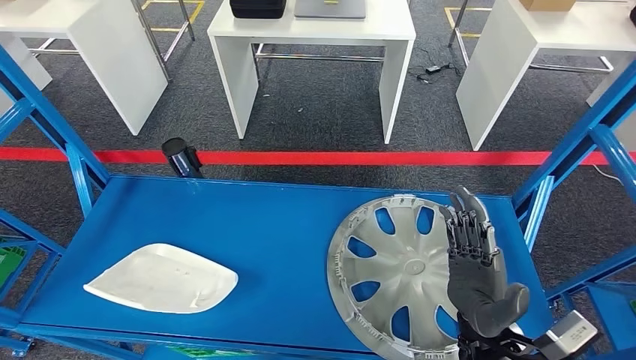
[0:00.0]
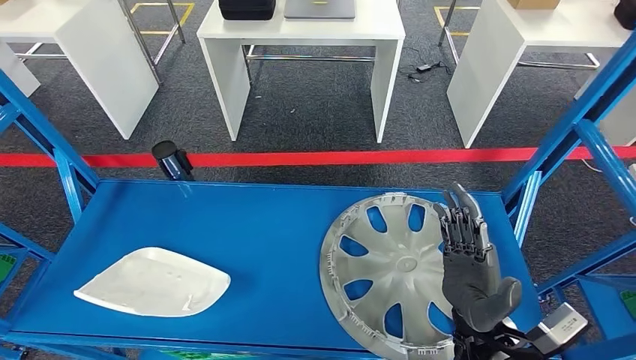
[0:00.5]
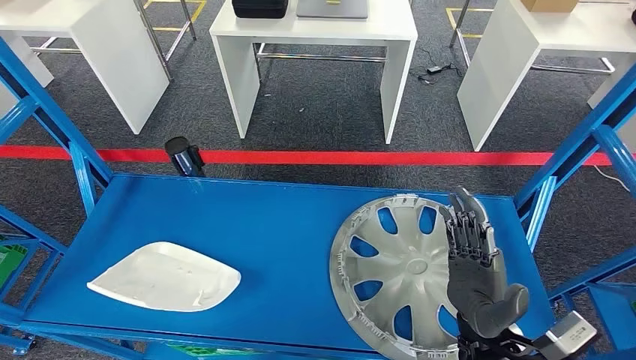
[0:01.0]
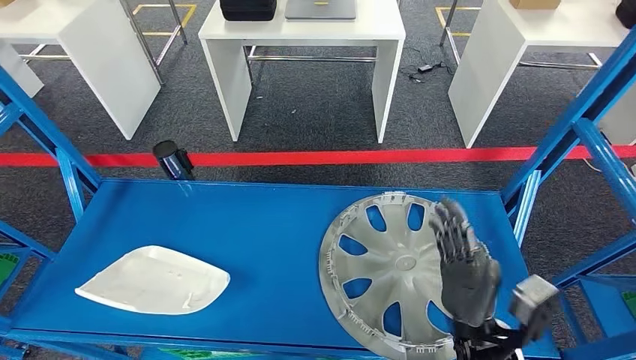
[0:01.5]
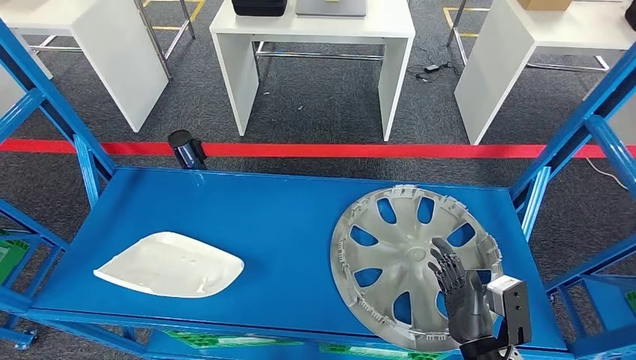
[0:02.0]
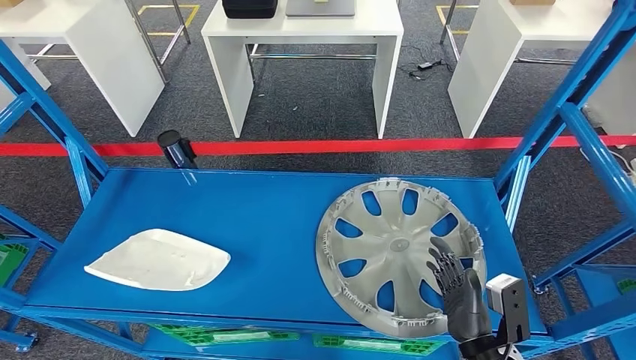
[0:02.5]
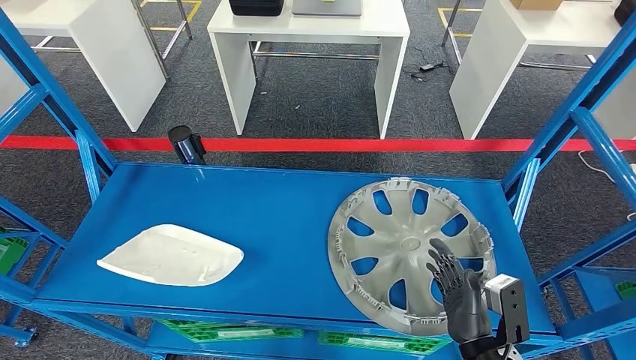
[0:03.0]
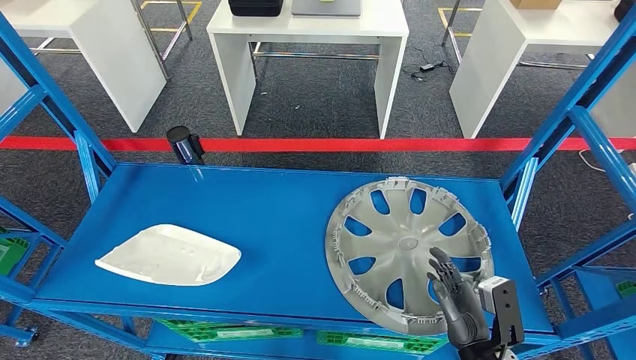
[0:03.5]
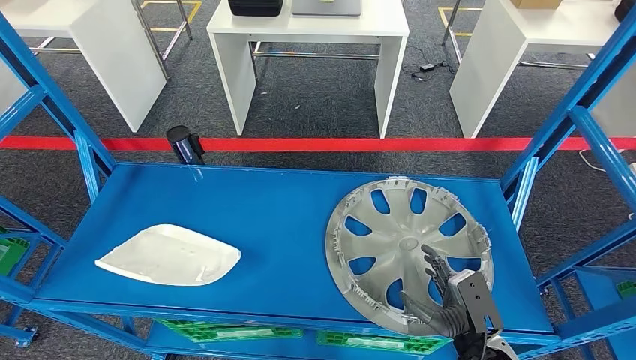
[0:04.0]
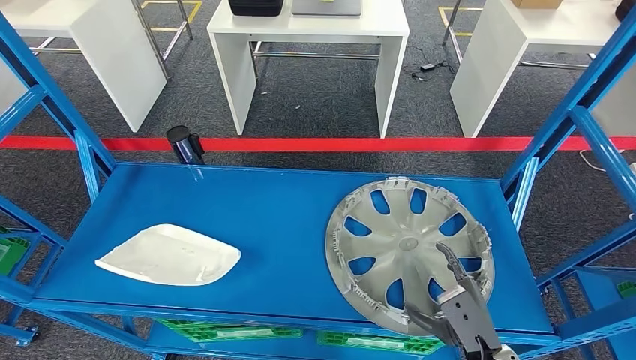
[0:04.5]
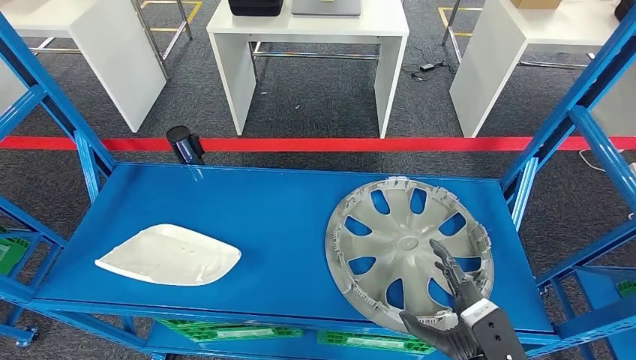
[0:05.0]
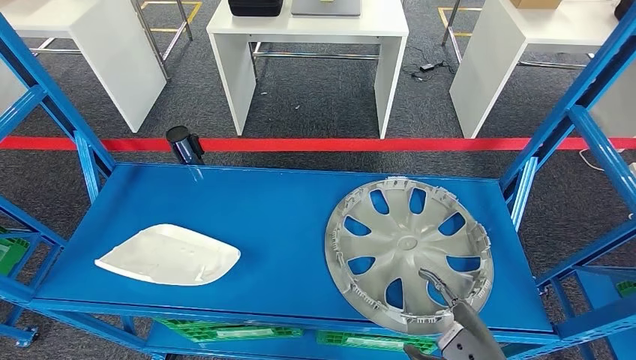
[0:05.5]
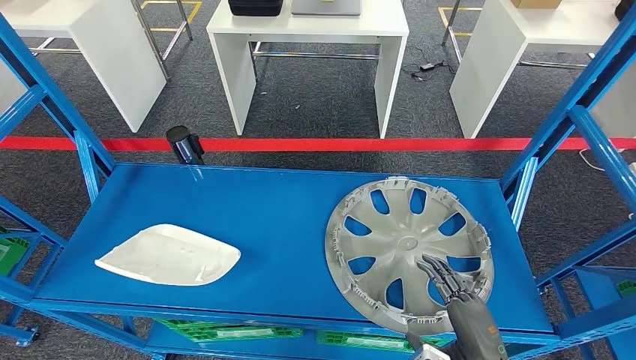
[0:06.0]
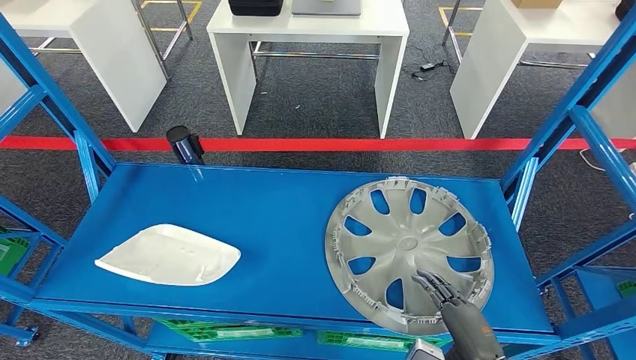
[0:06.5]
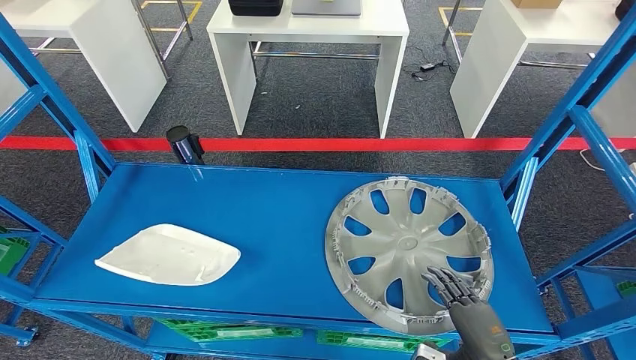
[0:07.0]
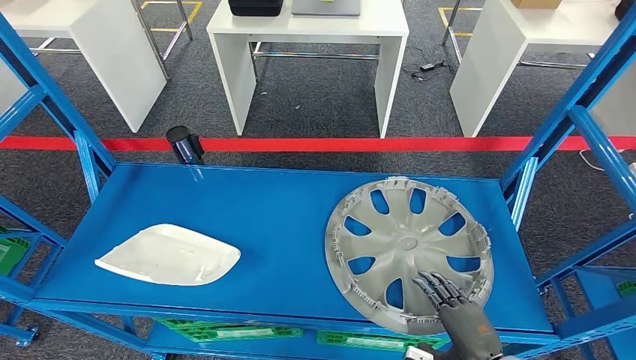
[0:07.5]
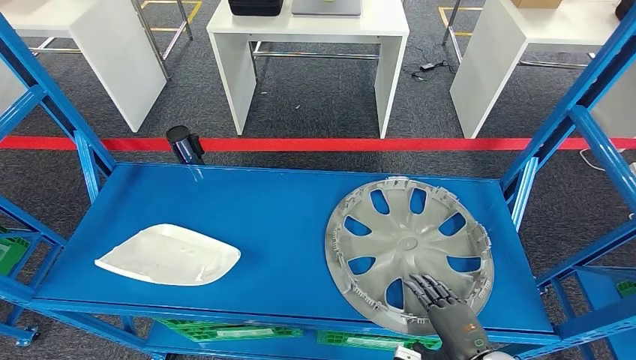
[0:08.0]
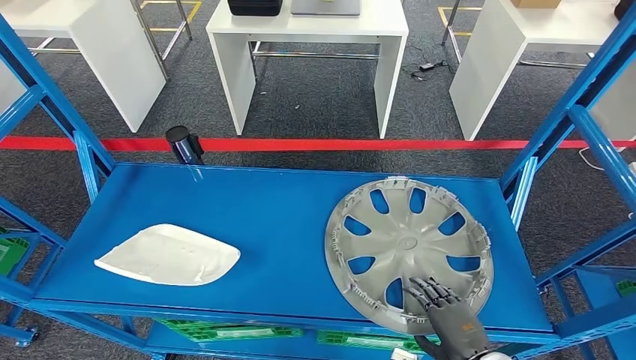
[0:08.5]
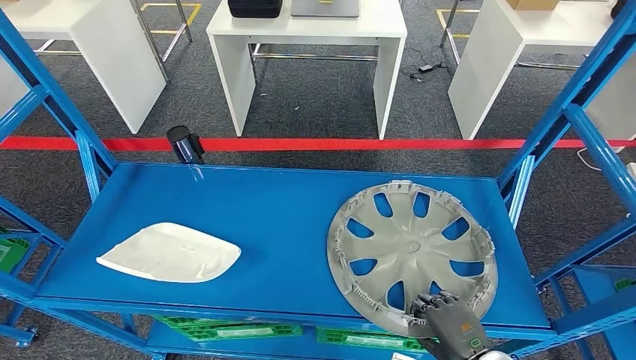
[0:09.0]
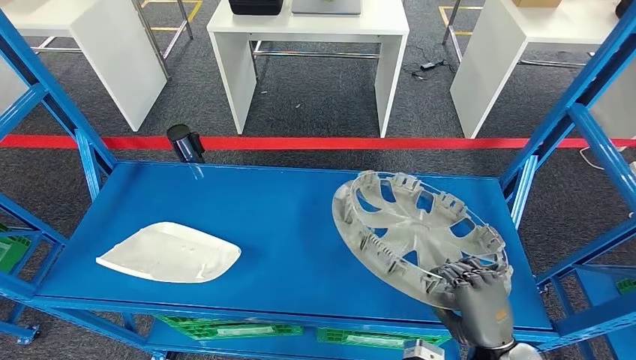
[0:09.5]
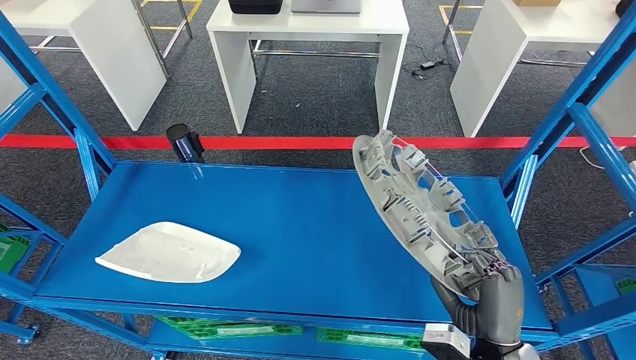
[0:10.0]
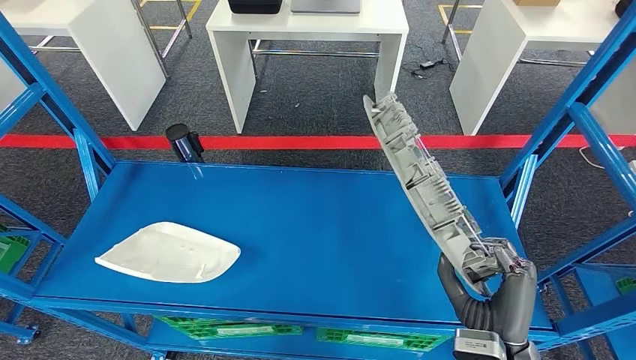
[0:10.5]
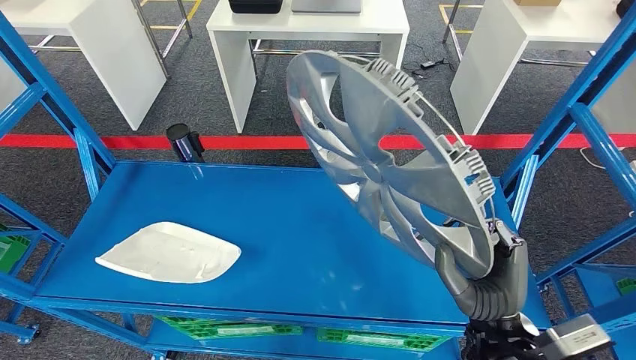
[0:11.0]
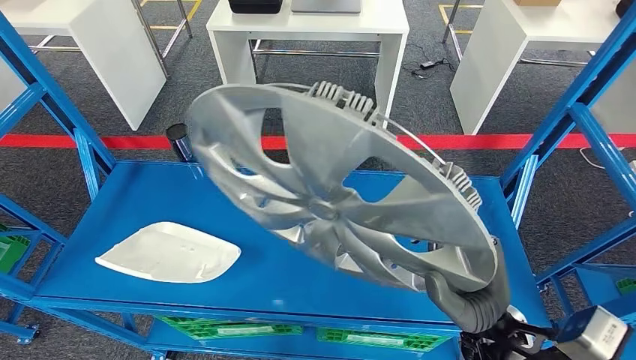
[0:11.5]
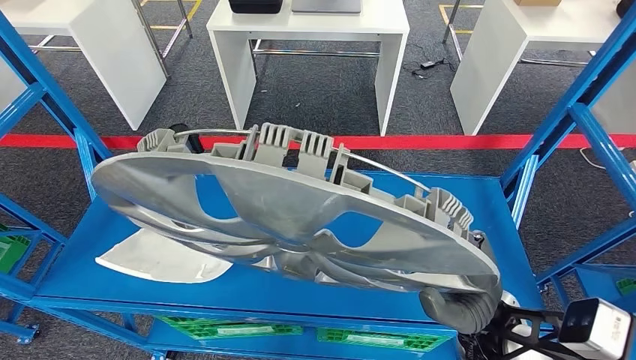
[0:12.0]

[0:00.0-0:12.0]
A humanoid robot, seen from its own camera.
Step, 0:00.0 to 0:10.5: Take small components from the rack.
0:04.0 to 0:06.0: The right hand ends up approximately 5 cm from where it was.
0:06.0 to 0:08.0: The right hand goes about 5 cm downward.
0:08.0 to 0:10.0: The right hand heads upward, covering some 5 cm.

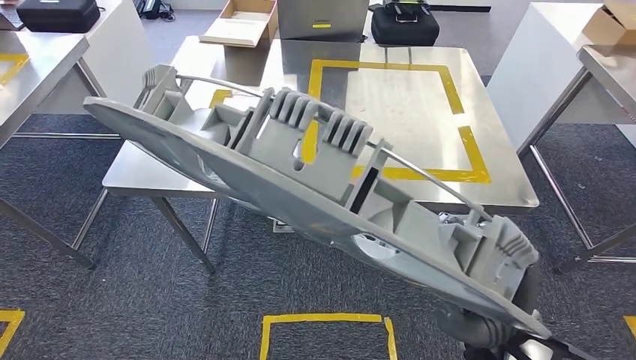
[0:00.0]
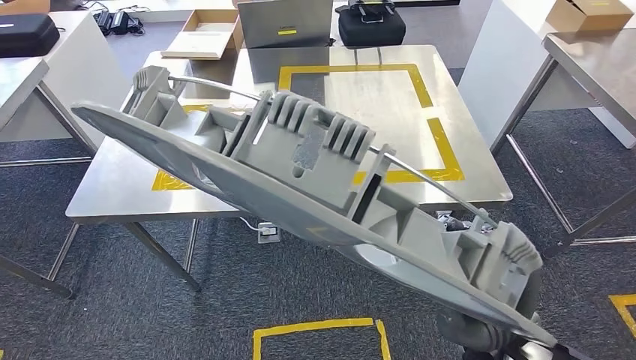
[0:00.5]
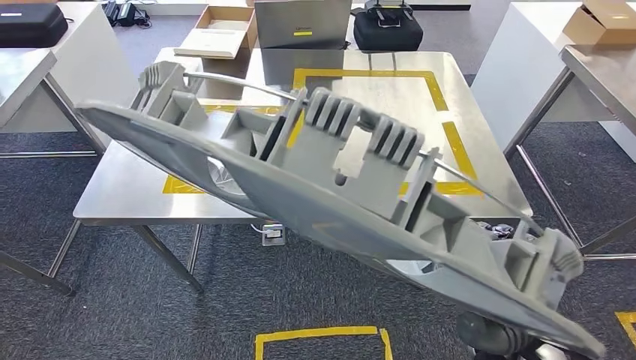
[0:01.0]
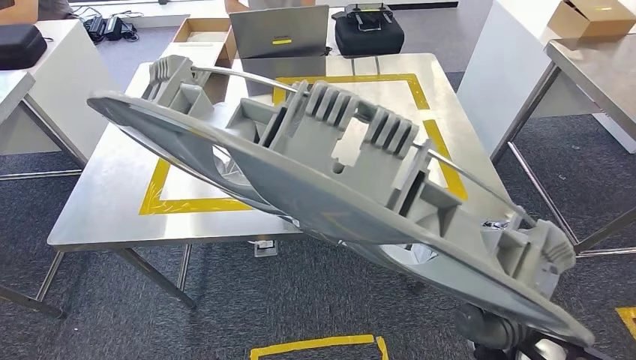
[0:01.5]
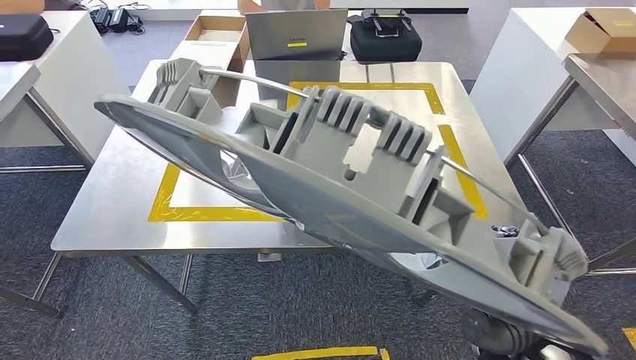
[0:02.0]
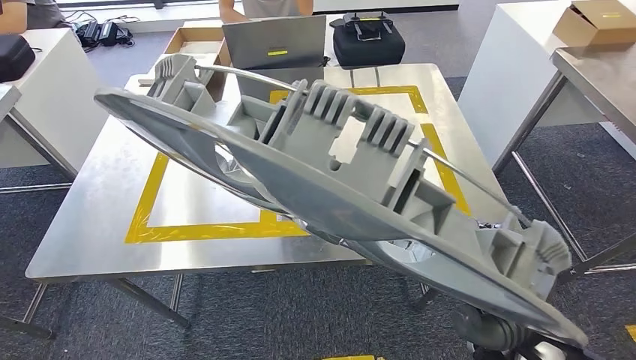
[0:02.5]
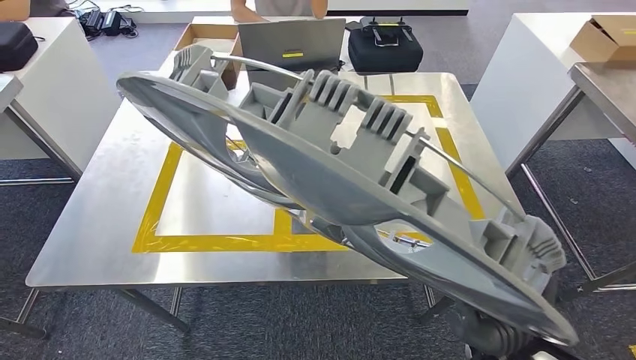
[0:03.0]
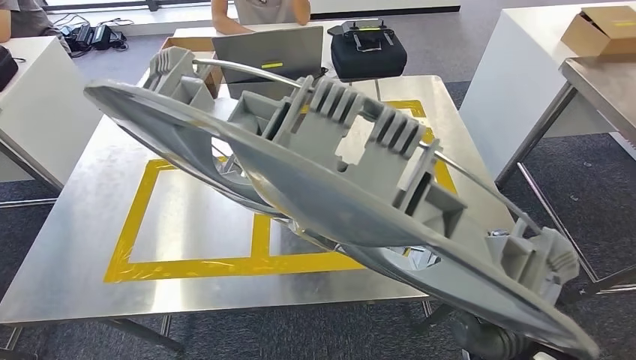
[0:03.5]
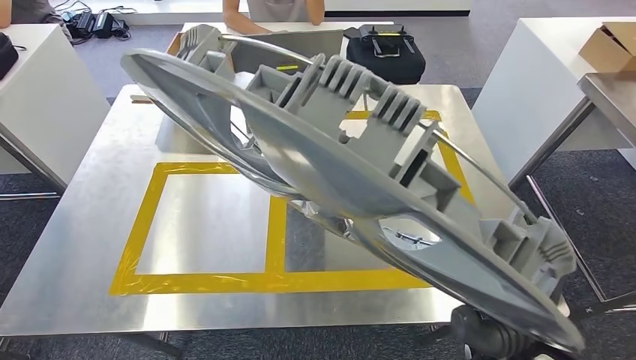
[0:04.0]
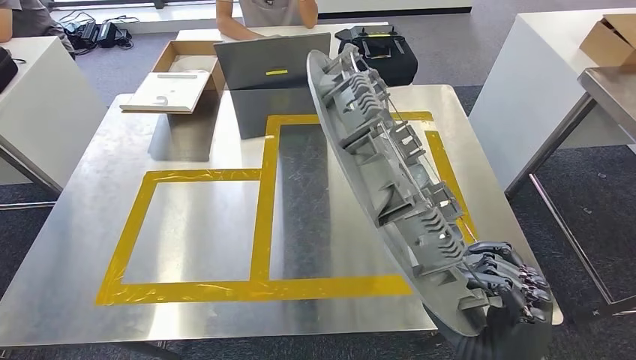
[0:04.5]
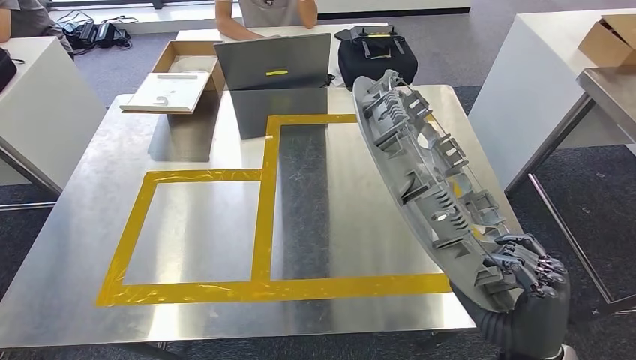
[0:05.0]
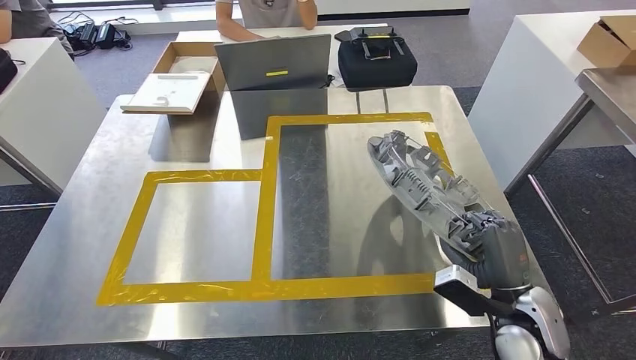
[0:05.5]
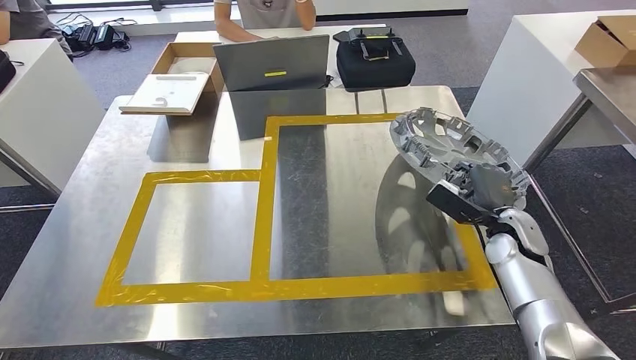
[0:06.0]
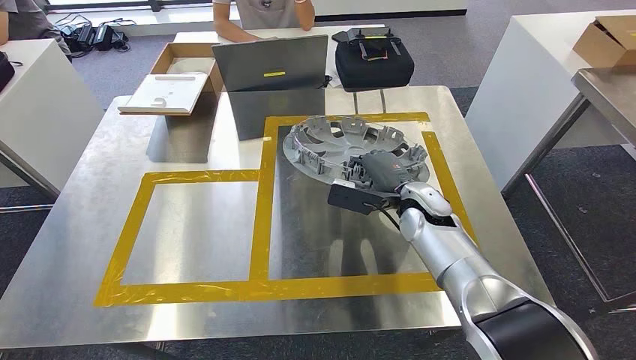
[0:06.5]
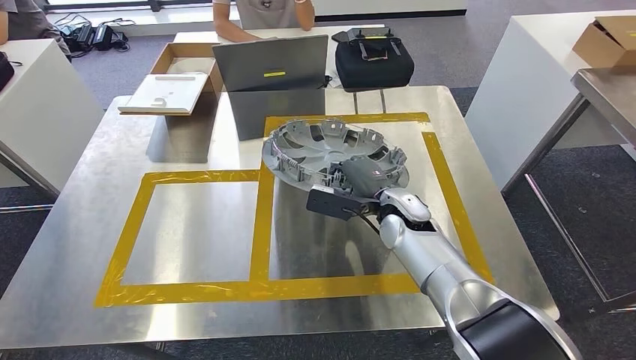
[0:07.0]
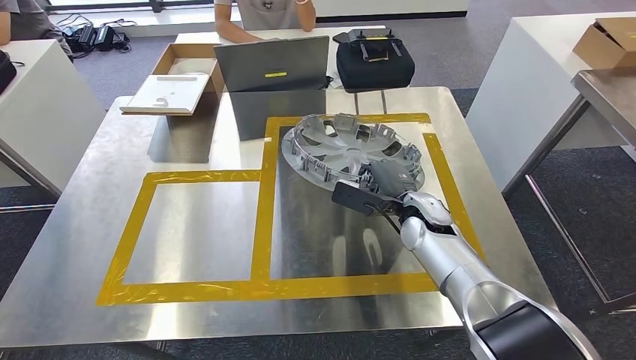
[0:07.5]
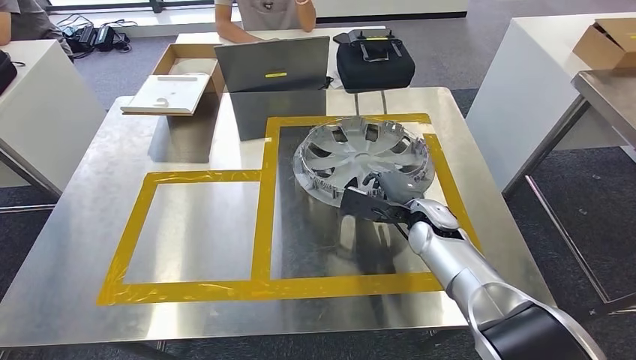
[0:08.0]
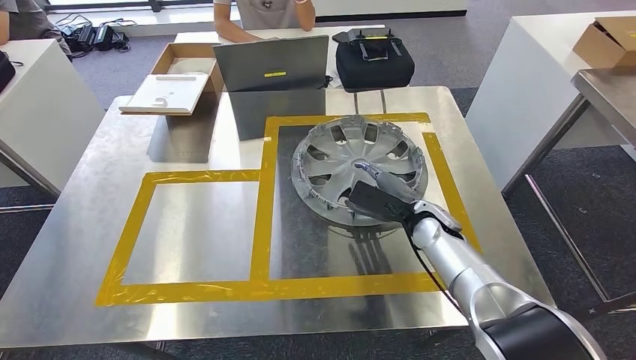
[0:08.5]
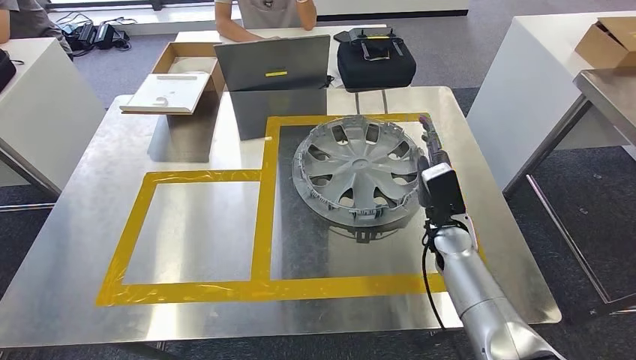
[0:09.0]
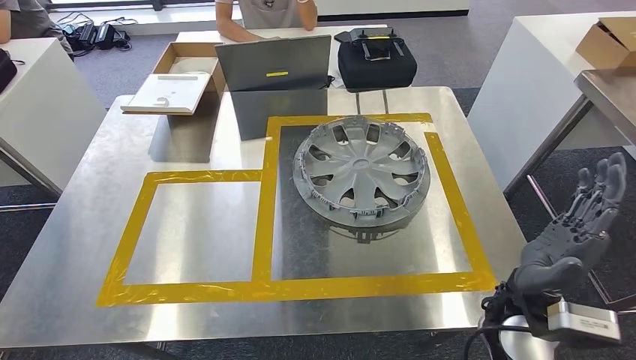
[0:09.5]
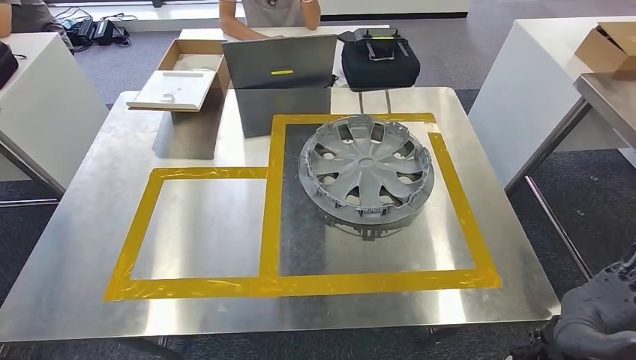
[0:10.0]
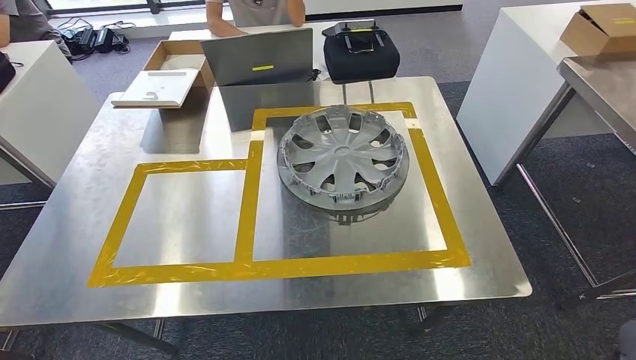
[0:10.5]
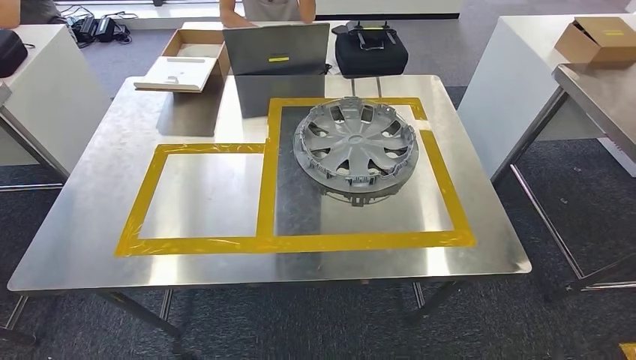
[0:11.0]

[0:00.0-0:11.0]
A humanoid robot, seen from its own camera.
Step, 0:00.0 to 0:03.5: Move the small parts to the workbench.
Step, 0:04.0 to 0:09.5: Insert the small parts into the corresponding holes on the workbench.
